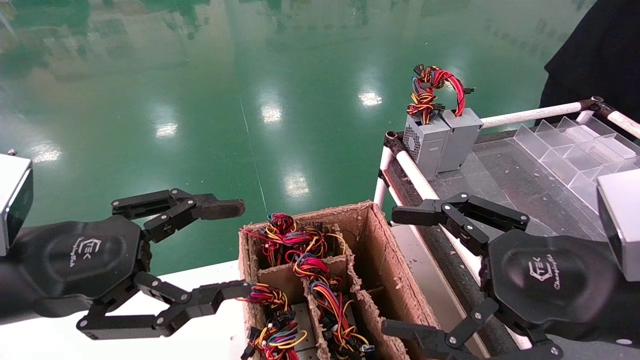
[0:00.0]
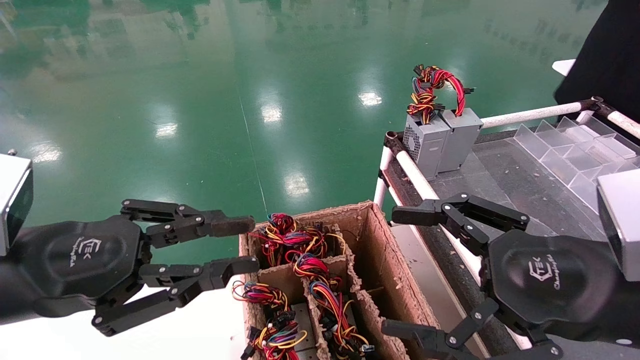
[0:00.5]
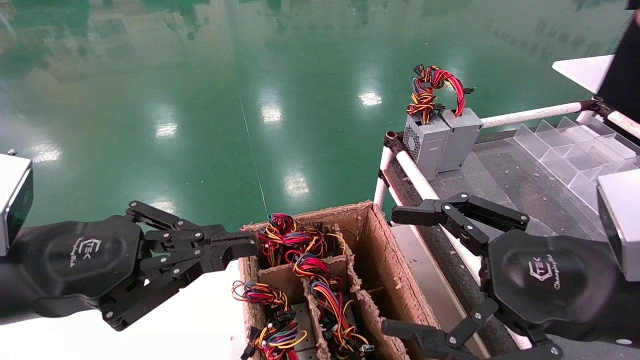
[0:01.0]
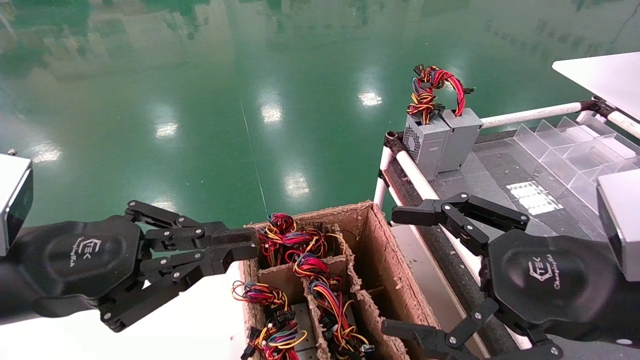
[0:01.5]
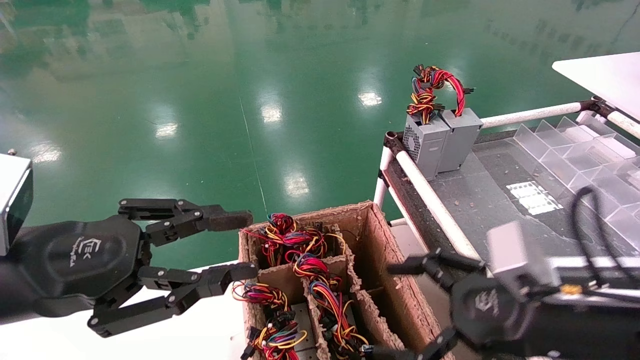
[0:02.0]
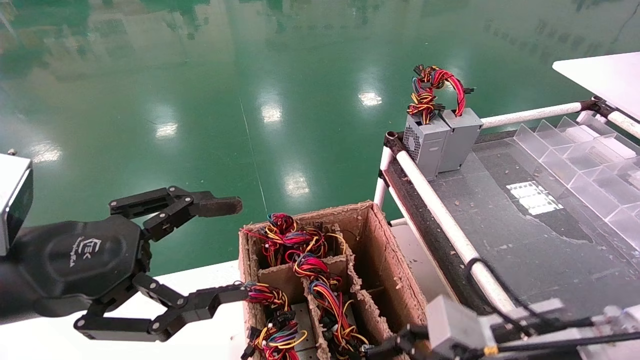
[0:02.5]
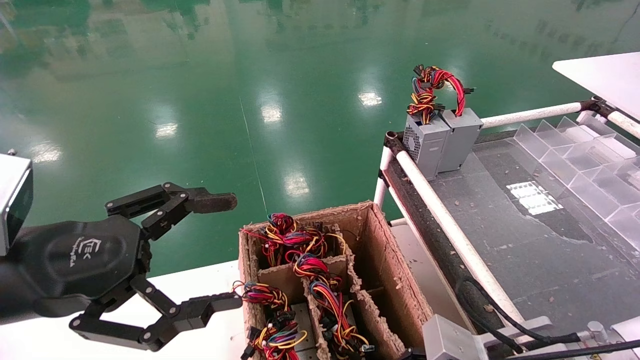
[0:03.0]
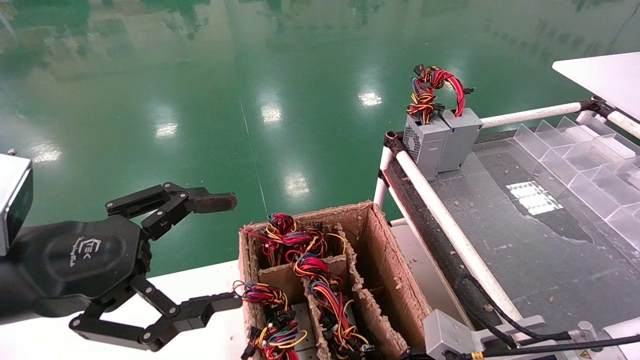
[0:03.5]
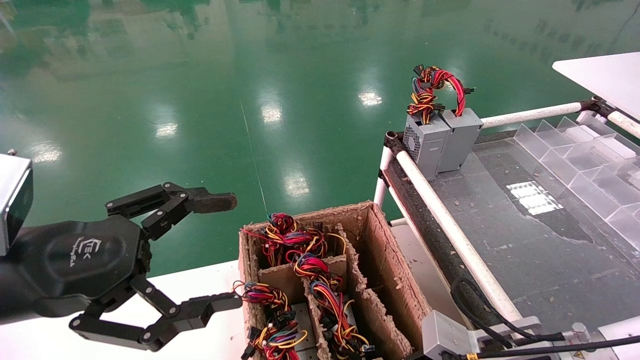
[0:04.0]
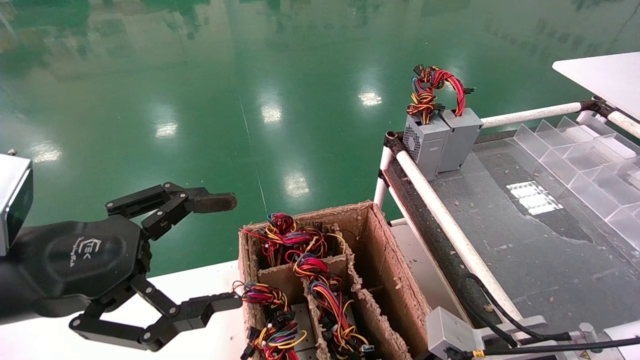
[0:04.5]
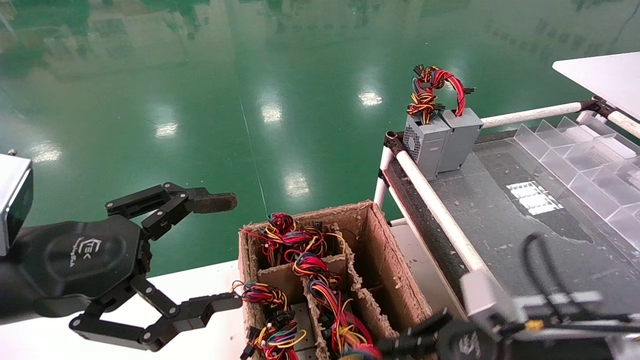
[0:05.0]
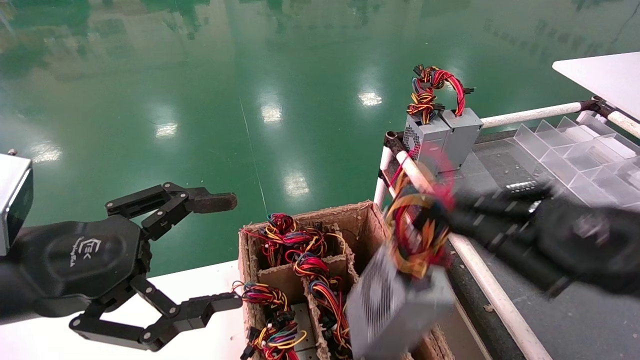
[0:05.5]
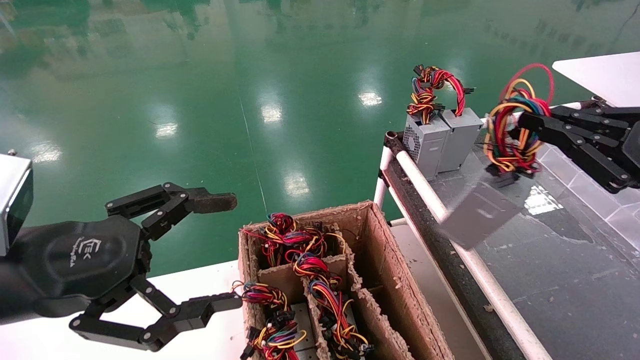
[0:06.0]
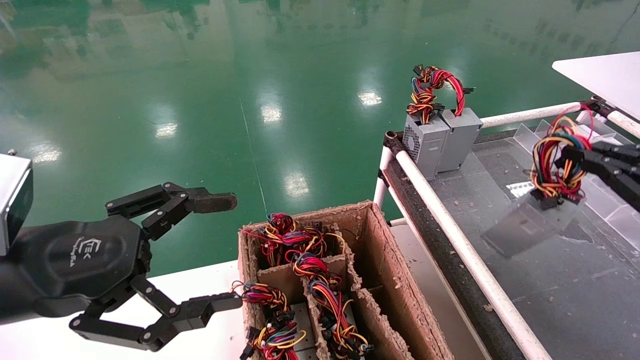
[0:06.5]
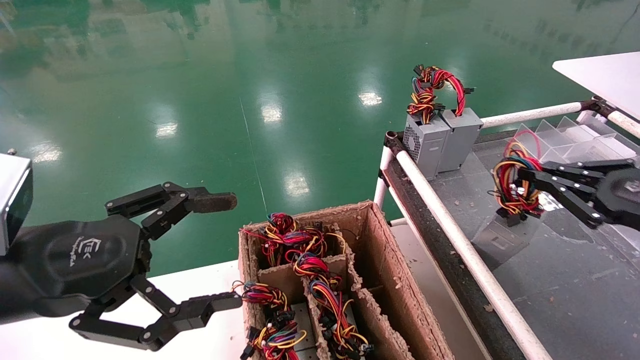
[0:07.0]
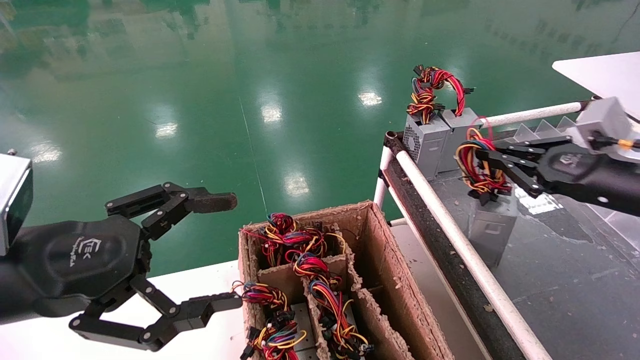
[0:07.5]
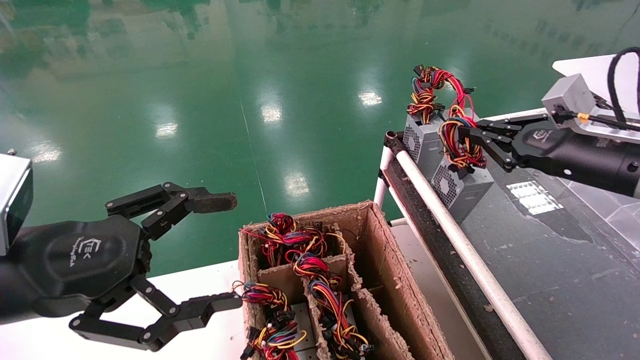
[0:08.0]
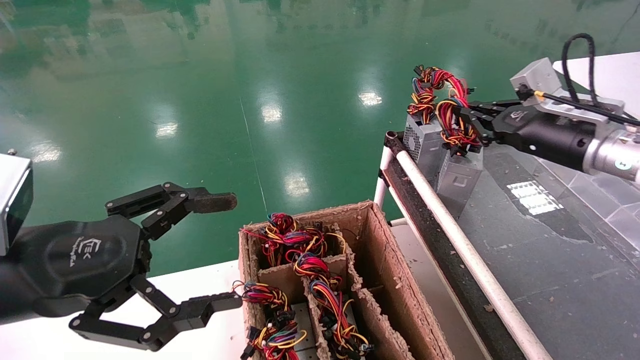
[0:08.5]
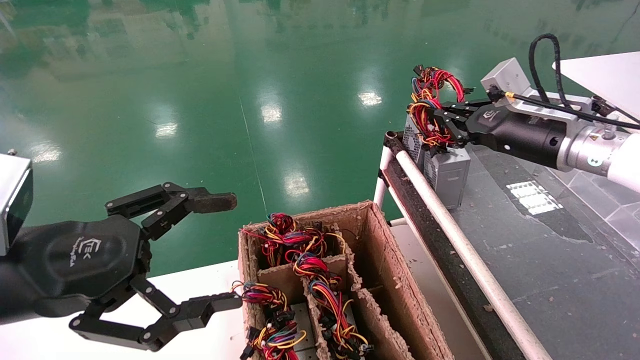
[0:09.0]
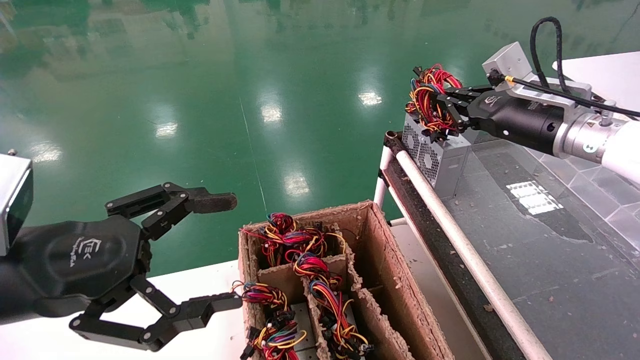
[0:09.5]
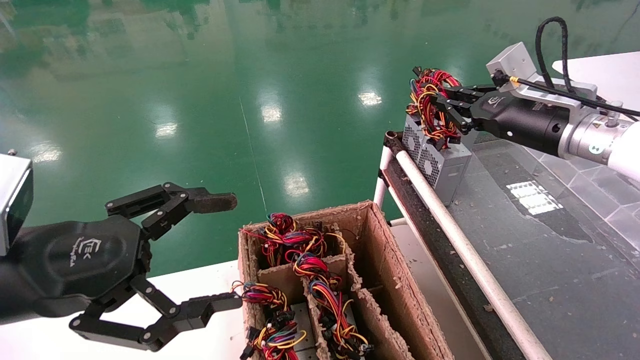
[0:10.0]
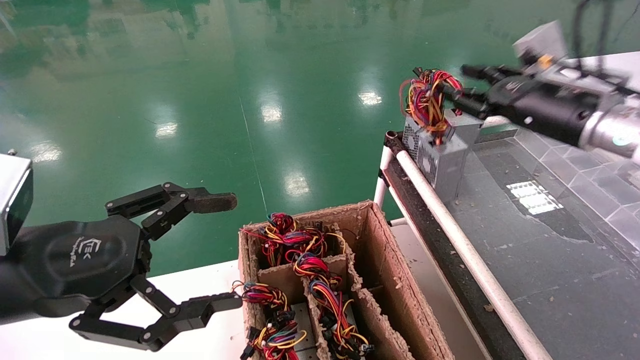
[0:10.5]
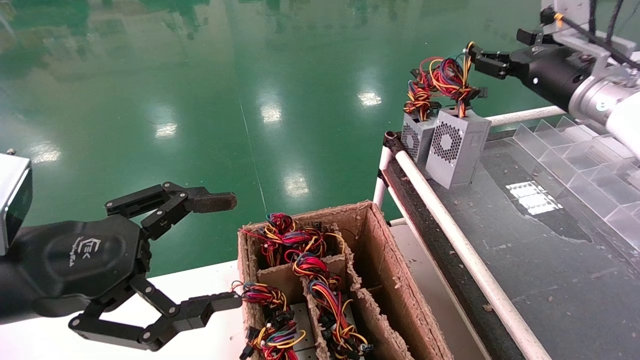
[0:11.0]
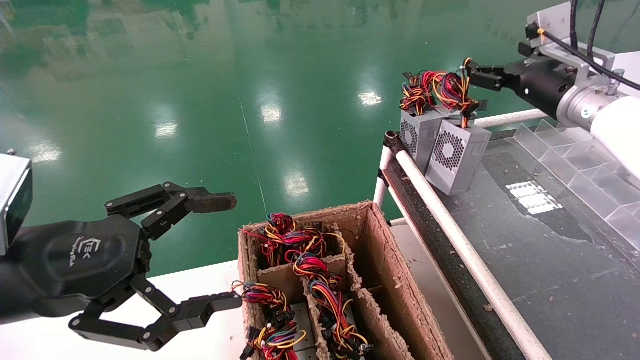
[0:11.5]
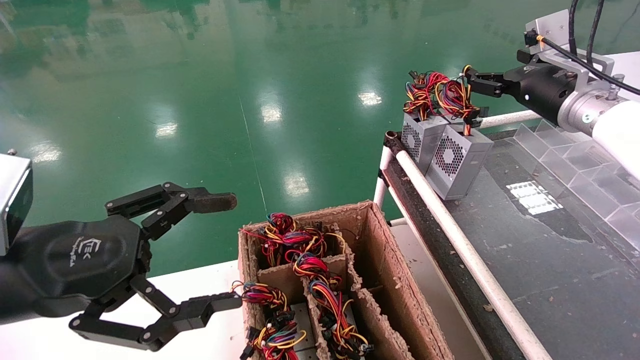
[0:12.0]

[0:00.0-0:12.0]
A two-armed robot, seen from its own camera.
Step, 0:01.5 to 0:04.0: Grab and lift the power supply from the large box.
Step, 0:04.5 to 0:09.5: Place the power supply on the operating table.
0:00.0 to 0:02.0: The left gripper closes; the right gripper travels downward by about 5 cm.
0:02.0 to 0:04.0: The right gripper heads downward, covering roughly 10 cm, and closes its fingers. The left gripper opens its fingers.
0:04.0 to 0:06.0: The right gripper moves upward and to the right, some 25 cm, and closes up.
0:06.0 to 0:08.0: The right gripper is displaced forward by about 15 cm.
0:08.0 to 0:10.0: The right gripper travels to the left and forward by approximately 10 cm.
0:10.0 to 0:12.0: The right gripper ends up approximately 5 cm from where it was, and opens.

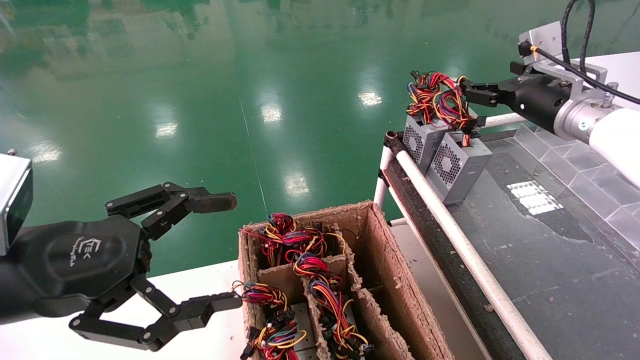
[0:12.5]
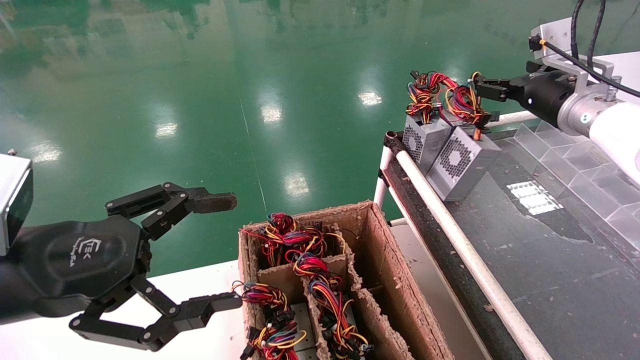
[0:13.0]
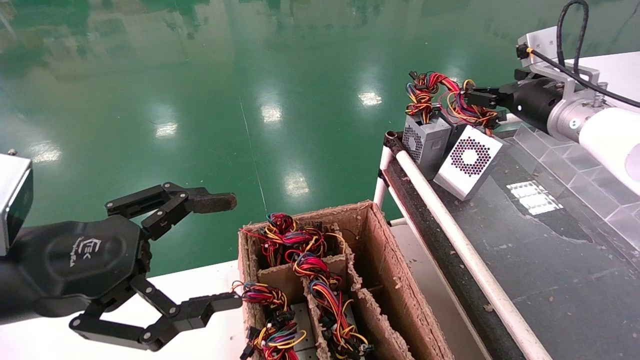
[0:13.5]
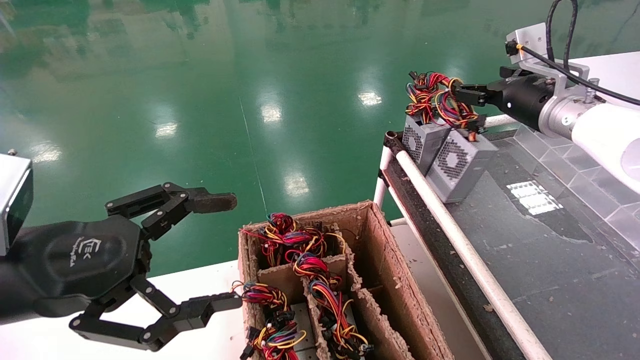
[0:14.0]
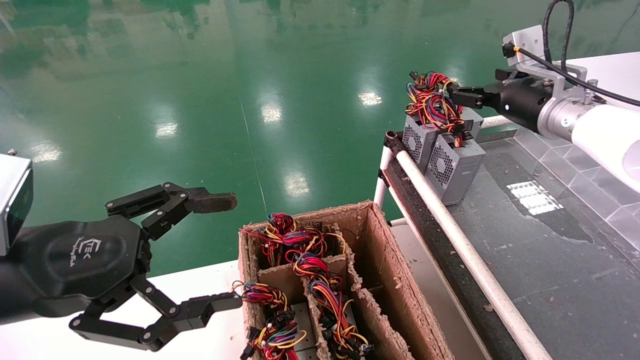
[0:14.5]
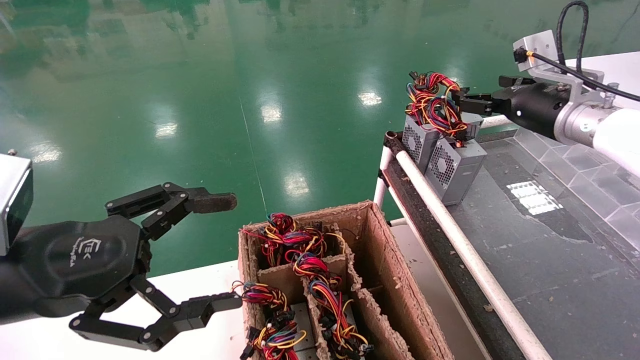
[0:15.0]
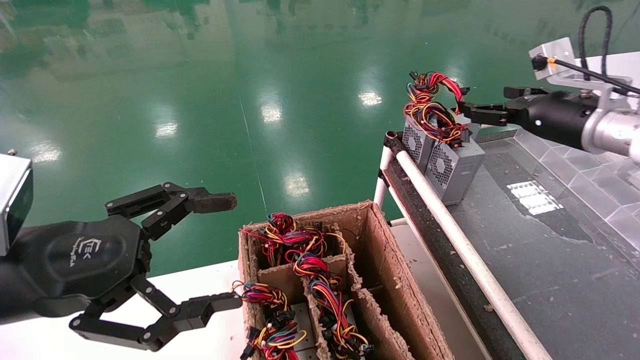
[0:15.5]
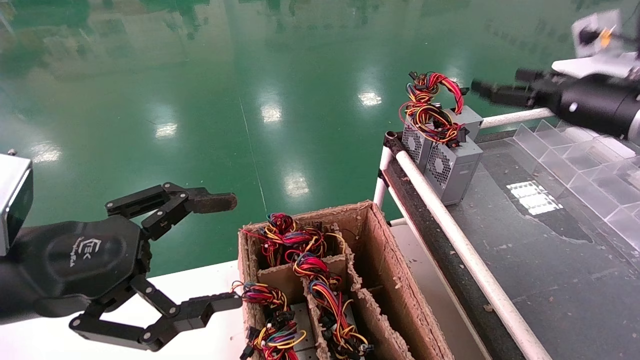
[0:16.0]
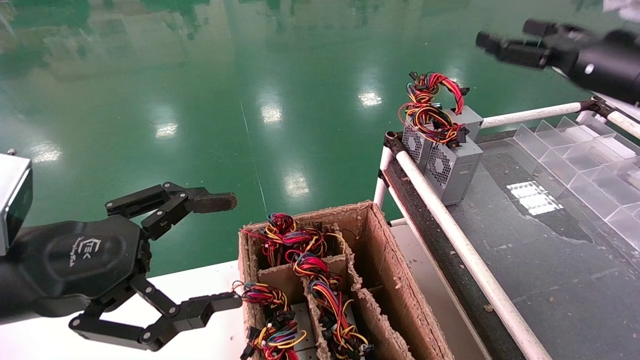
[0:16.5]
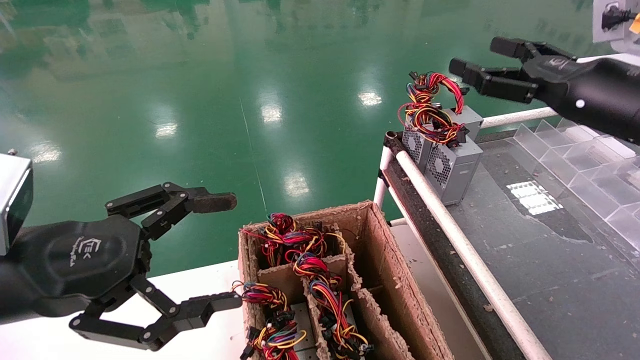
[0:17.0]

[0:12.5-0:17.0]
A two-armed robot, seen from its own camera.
0:12.5 to 0:14.5: The grippers move only a little.
0:14.5 to 0:17.0: The right gripper heads backward, covering about 10 cm.

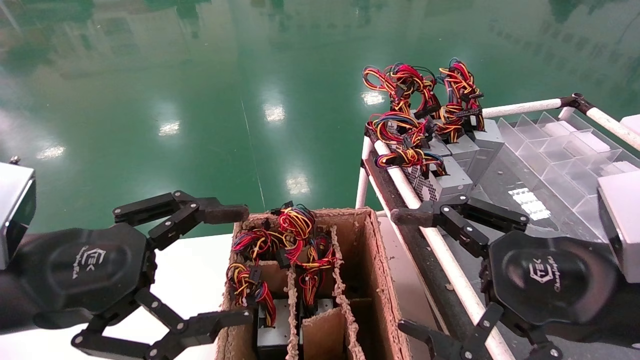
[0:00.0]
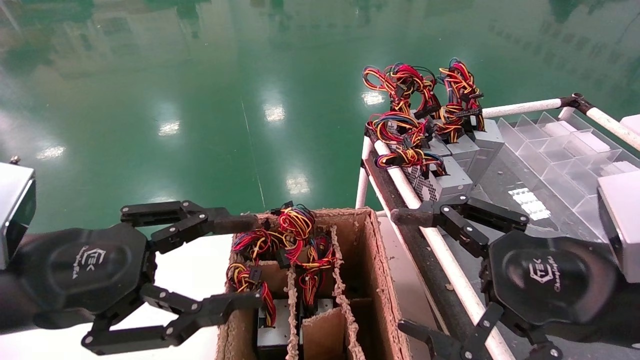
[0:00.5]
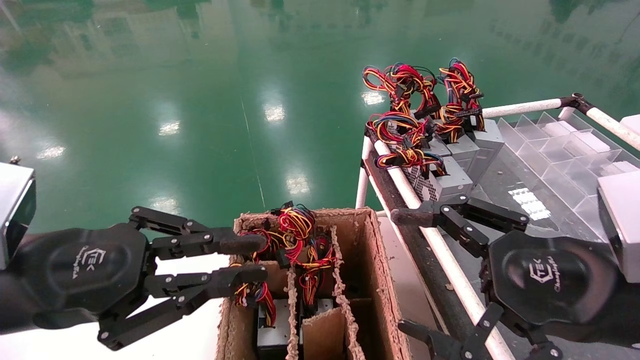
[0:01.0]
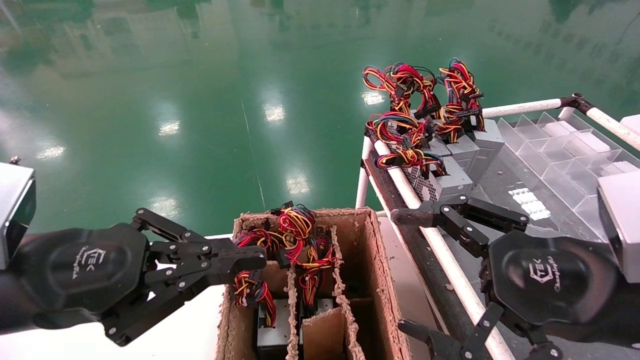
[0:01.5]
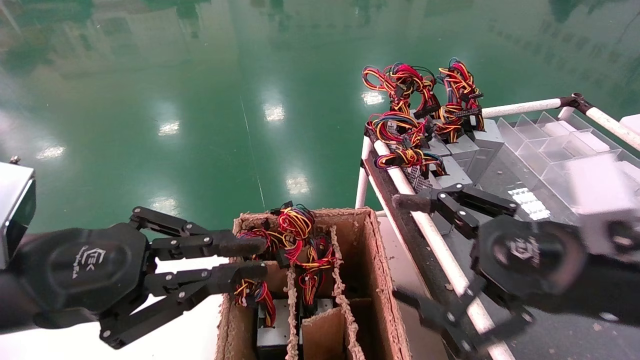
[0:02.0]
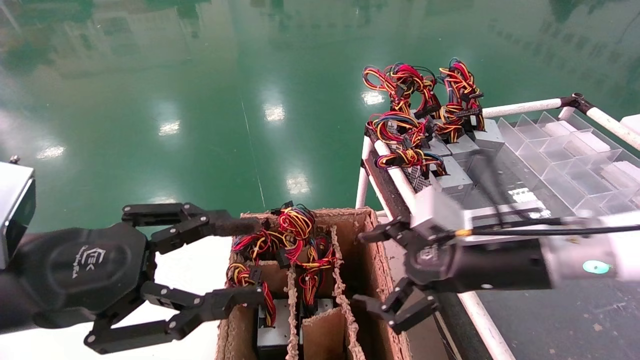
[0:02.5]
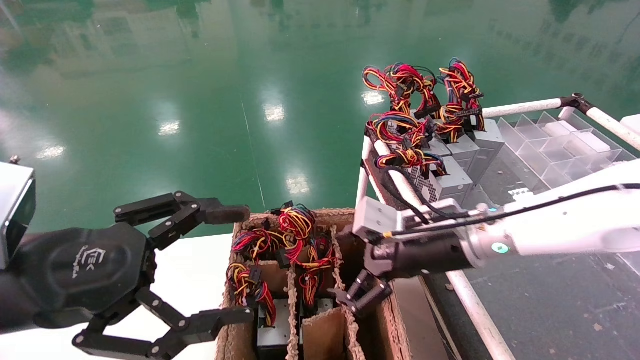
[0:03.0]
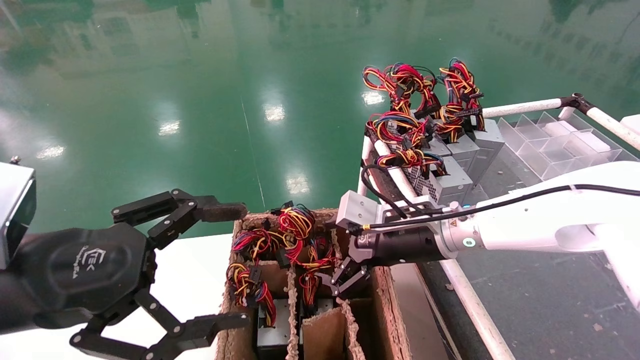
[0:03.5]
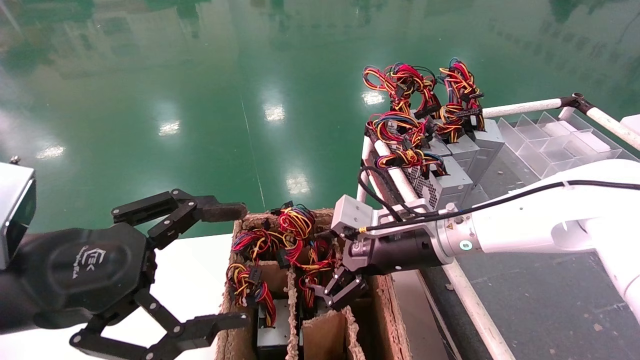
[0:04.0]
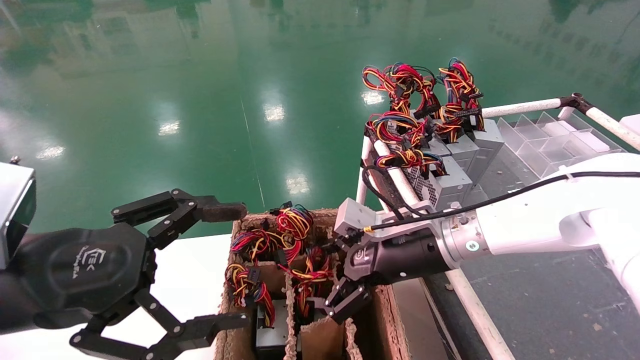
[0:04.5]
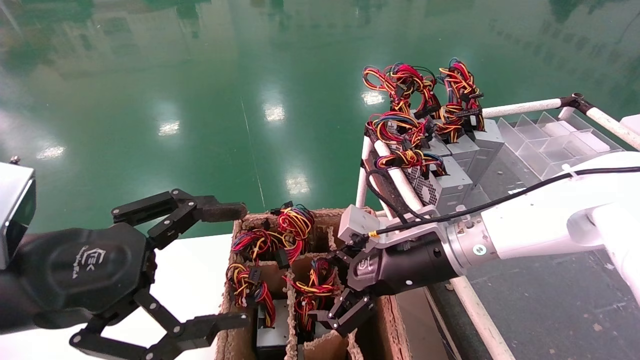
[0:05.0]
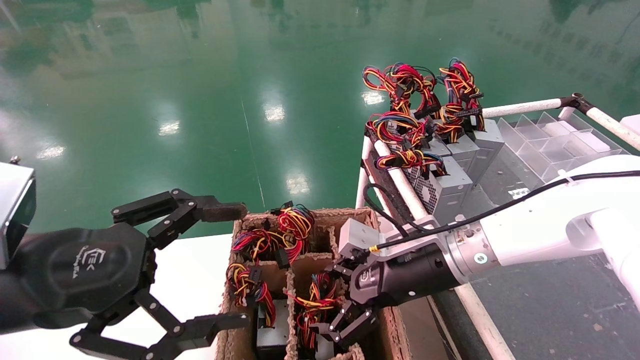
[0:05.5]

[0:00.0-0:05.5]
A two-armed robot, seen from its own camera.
0:00.0 to 0:02.0: The left gripper closes.
0:02.0 to 0:03.5: The right gripper heads forward and to the left, covering roughly 20 cm. The left gripper opens its fingers.
0:03.5 to 0:05.5: There are only small adjustments of the grippers.
